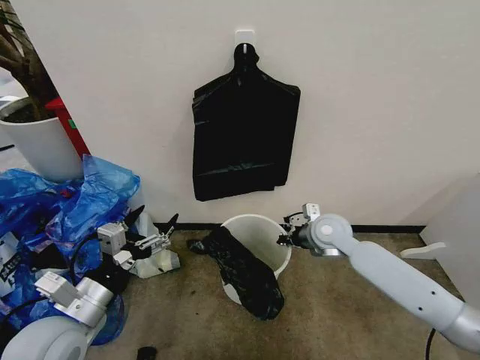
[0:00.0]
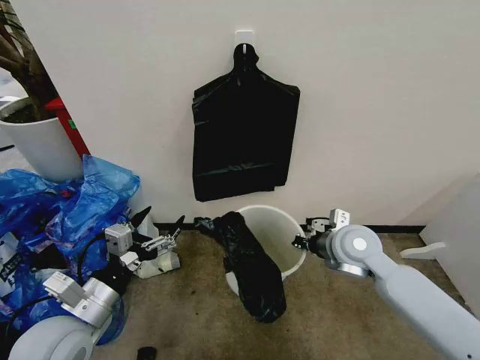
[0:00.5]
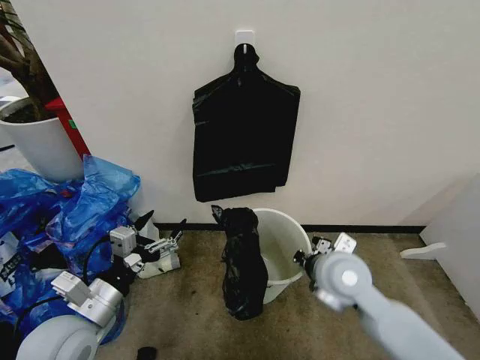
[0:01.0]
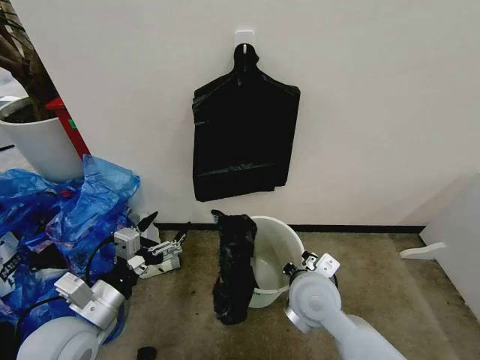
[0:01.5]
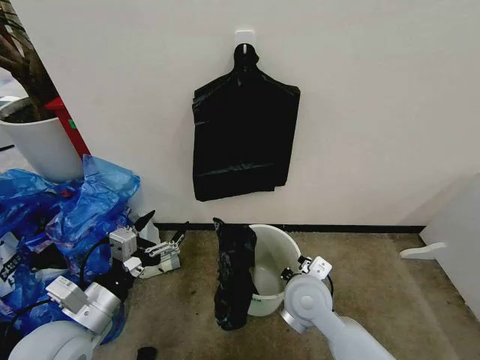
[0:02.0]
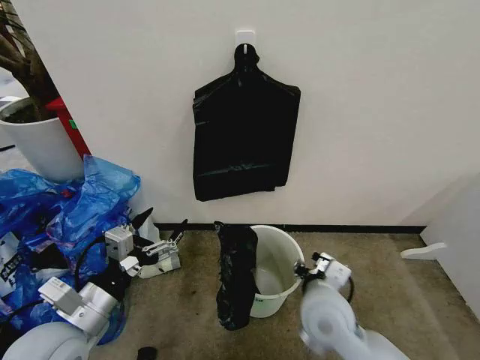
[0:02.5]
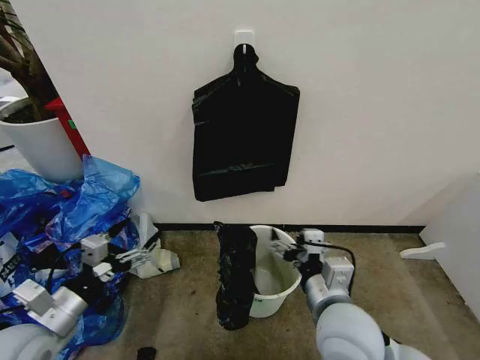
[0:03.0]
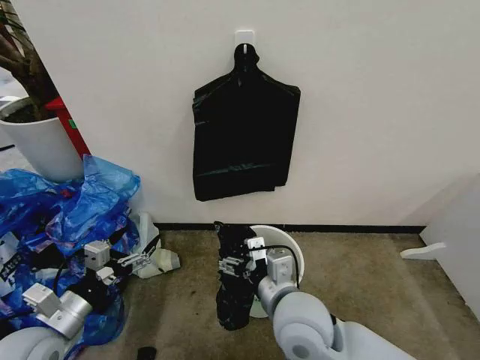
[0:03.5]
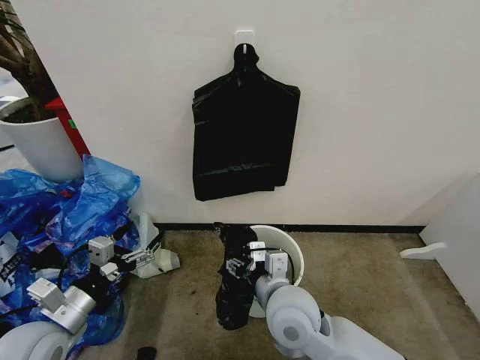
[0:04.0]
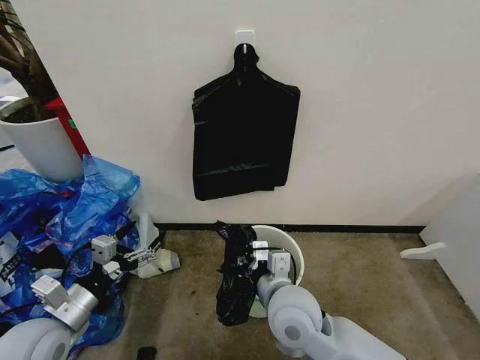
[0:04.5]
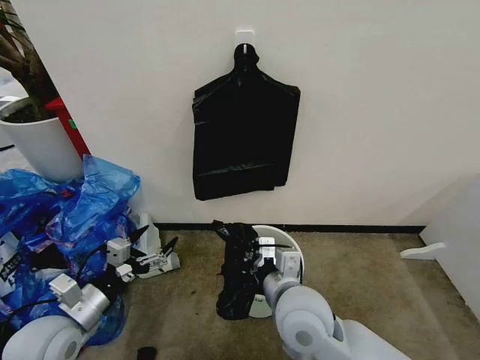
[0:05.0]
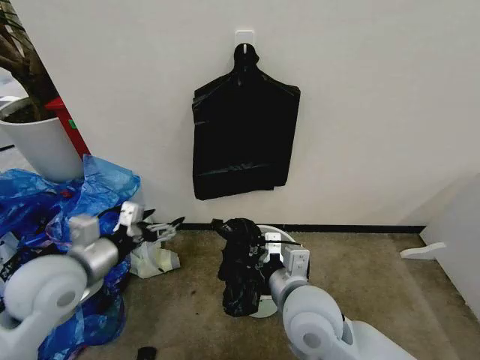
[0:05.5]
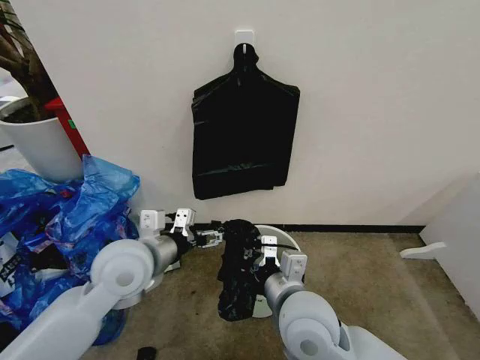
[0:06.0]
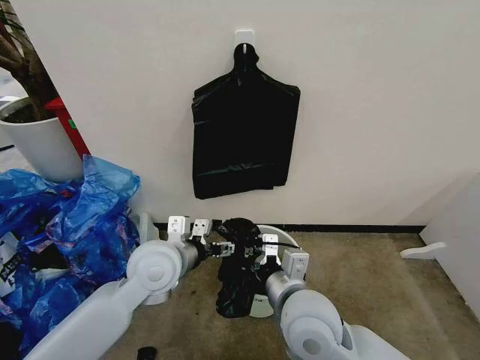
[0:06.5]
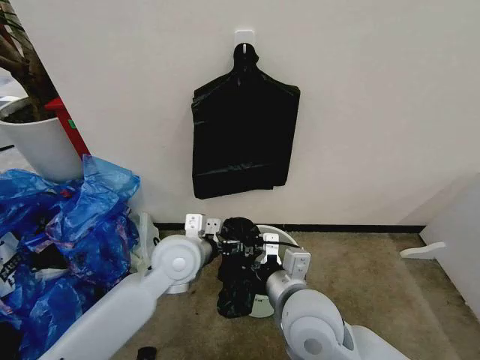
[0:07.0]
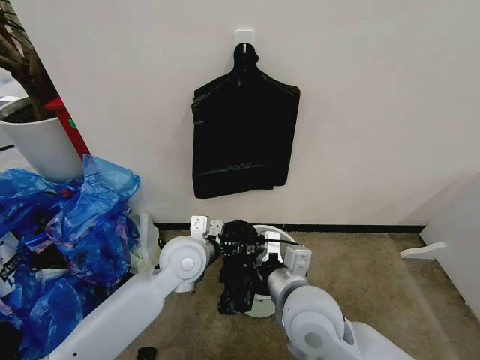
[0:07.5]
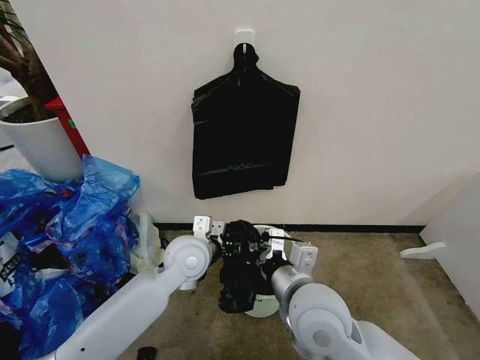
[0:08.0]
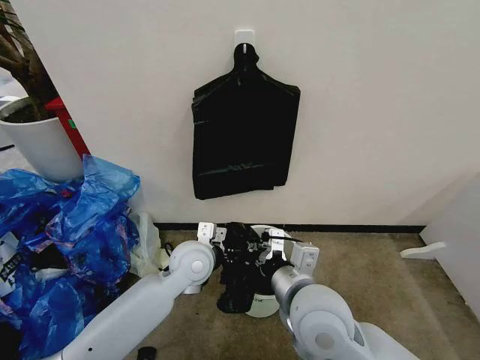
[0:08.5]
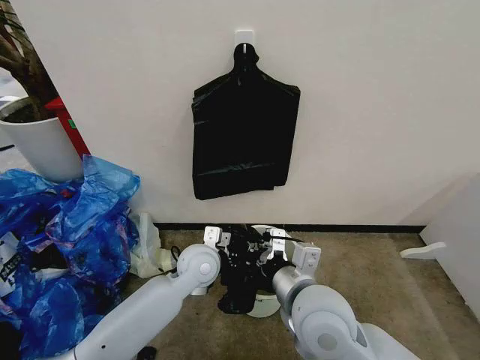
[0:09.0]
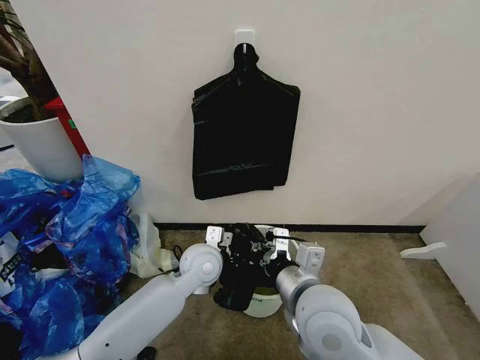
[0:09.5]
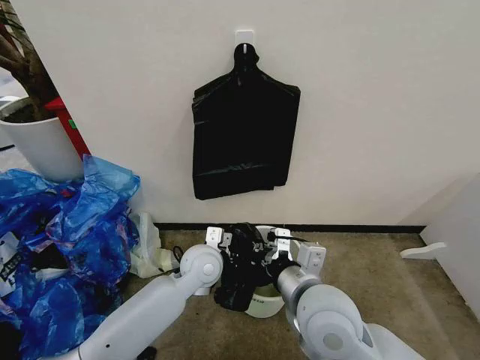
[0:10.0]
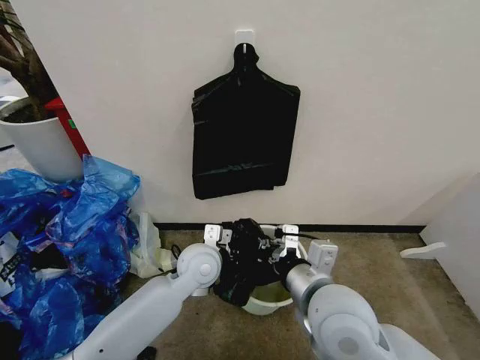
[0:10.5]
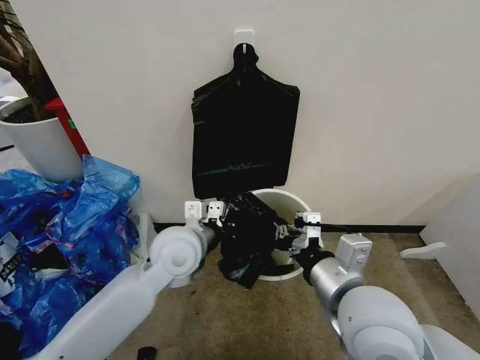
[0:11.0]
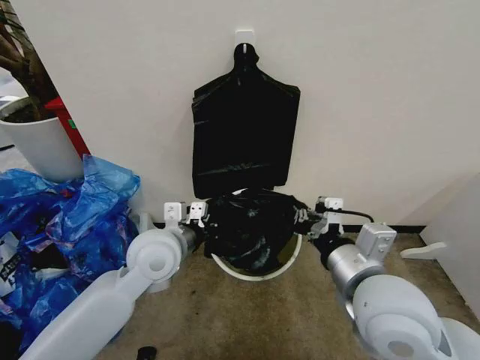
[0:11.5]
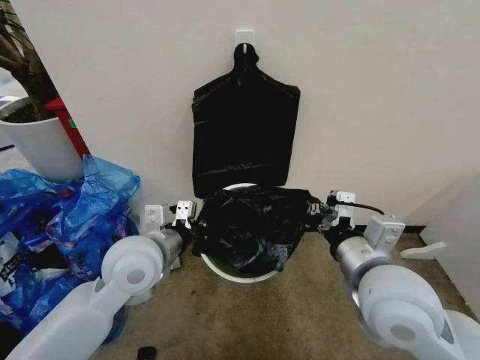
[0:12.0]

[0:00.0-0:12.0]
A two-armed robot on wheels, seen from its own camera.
Task of the whole recording: Place the garbage bag over the trash bin.
0:00.0 to 0:02.0: The right gripper travels backward and to the left by approximately 20 cm.
0:02.0 to 0:04.0: The right gripper opens its fingers; the left gripper travels to the left by roughly 5 cm.
0:04.0 to 0:06.0: The left gripper is displaced to the right, forward and upward by roughly 20 cm. The right gripper closes up.
0:06.0 to 0:08.0: The left gripper moves to the right, downward and forward, roughly 15 cm.
0:08.0 to 0:10.0: The left gripper moves roughly 5 cm, and closes its fingers.
0:10.0 to 0:12.0: The right gripper moves to the right and upward, approximately 10 cm. Meanwhile the left gripper shifts some 15 cm upward, to the left and backward.

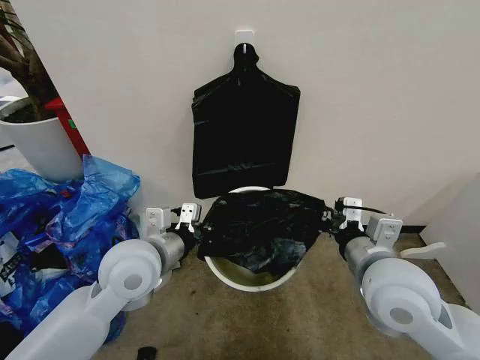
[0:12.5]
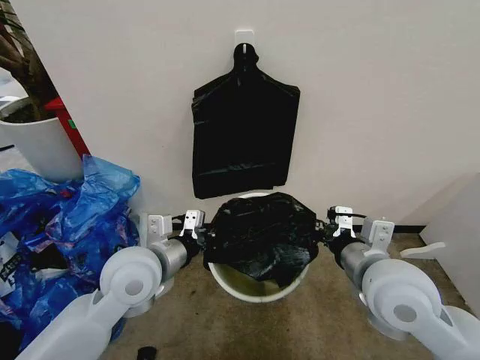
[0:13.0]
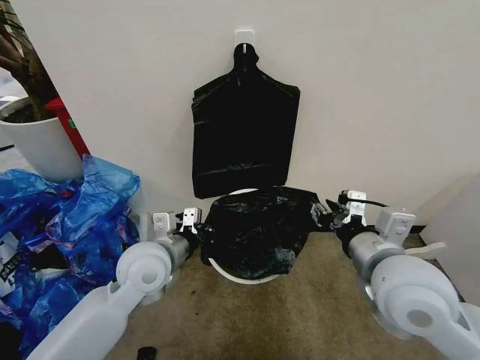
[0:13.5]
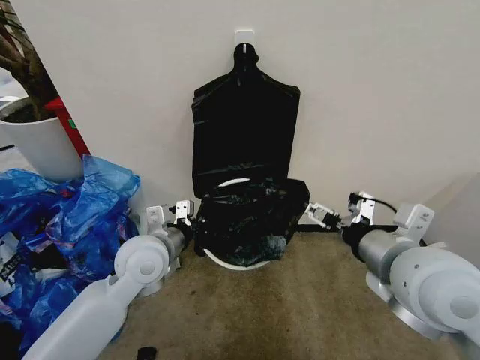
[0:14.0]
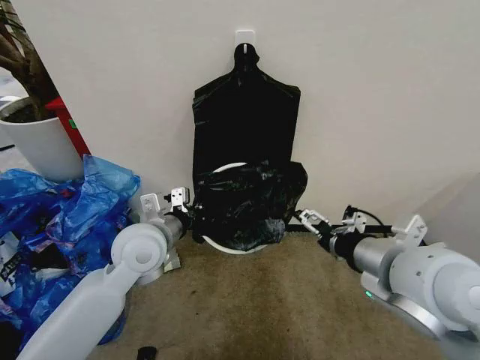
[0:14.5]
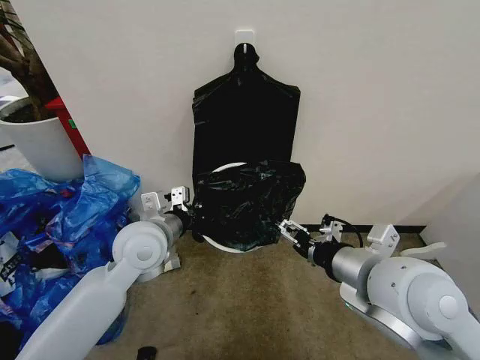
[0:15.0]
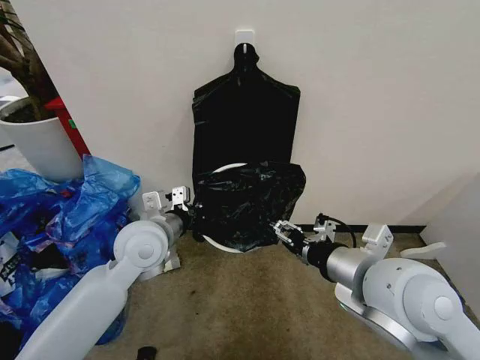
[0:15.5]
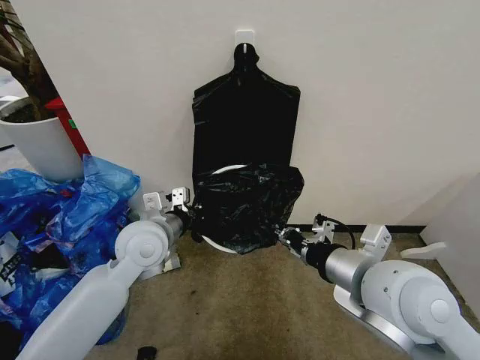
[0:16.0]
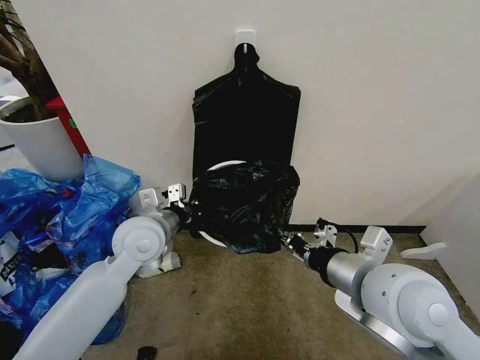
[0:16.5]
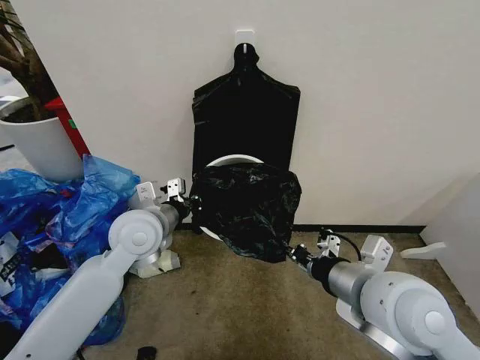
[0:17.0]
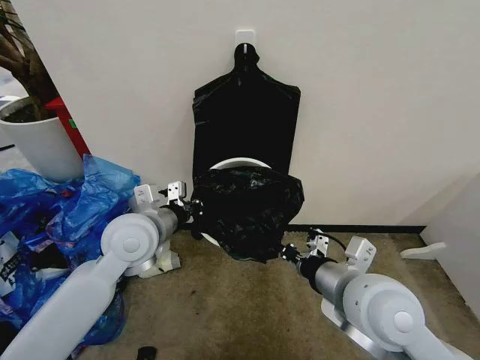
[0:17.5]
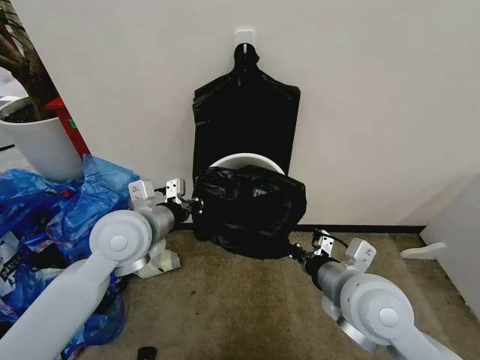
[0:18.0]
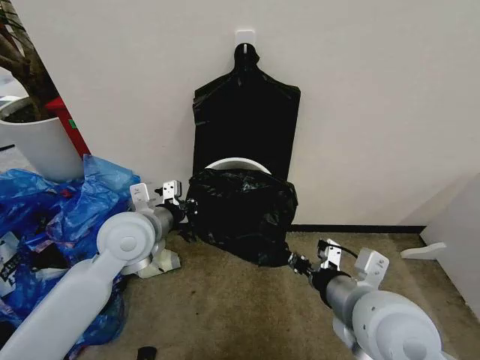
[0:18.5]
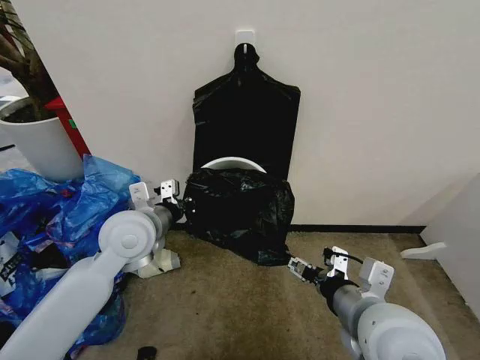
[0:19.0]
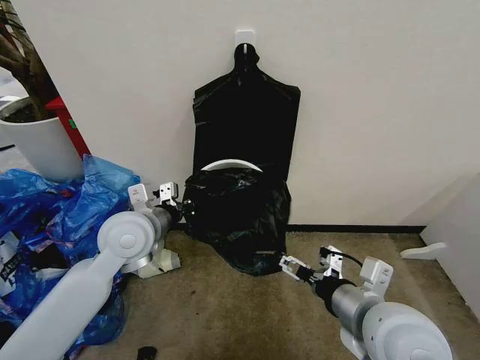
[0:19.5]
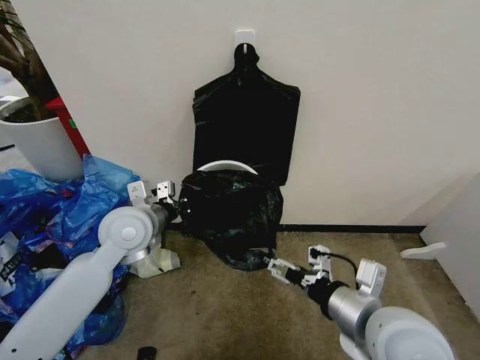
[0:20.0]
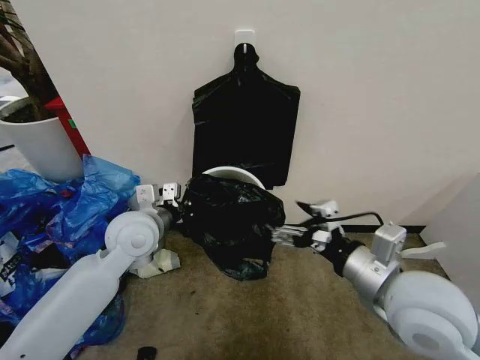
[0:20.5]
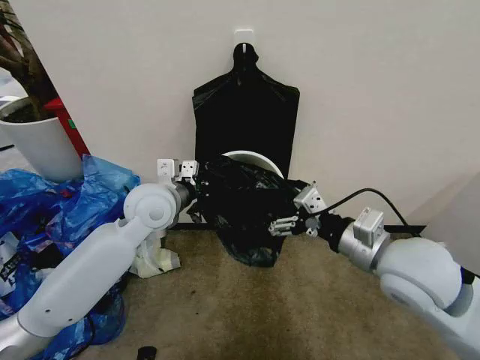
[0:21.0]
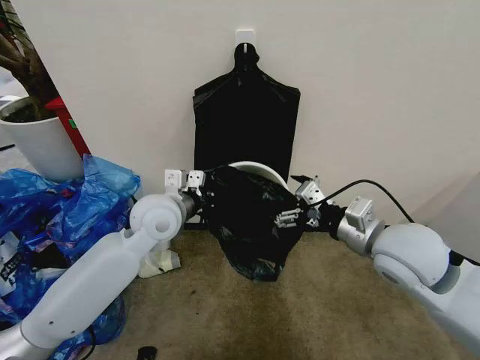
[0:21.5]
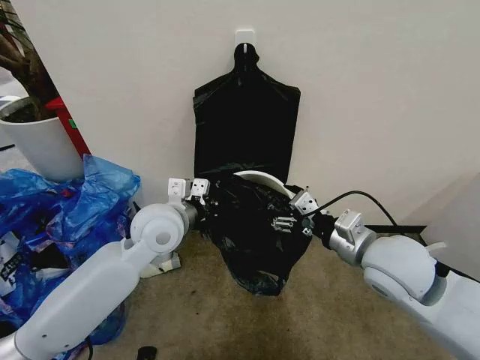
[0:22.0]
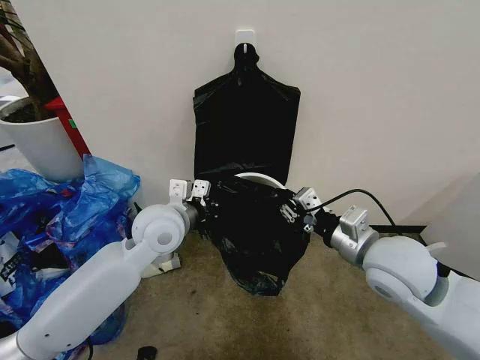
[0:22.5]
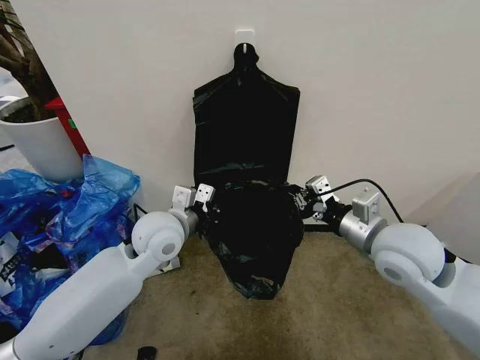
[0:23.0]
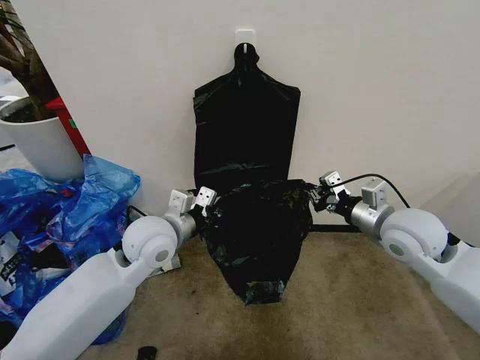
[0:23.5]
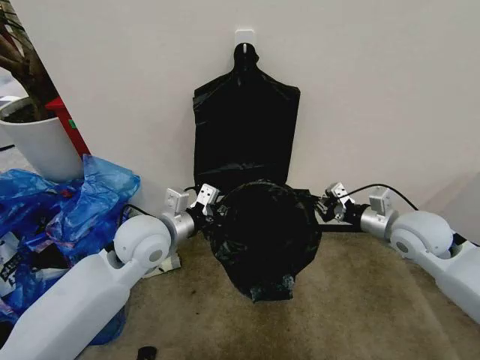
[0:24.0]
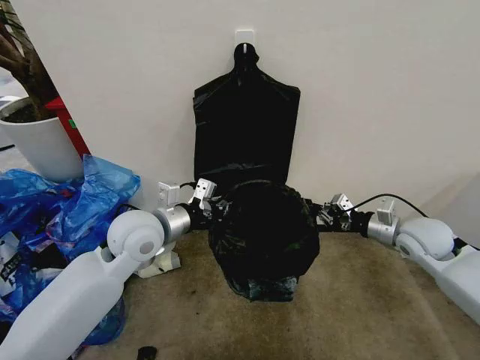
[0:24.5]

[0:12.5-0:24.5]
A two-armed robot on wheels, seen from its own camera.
Task of the whole recording: Place the garbage bag over the trash bin.
0:12.5 to 0:14.5: The right gripper heads upward, covering approximately 5 cm, and opens up.
0:14.5 to 0:16.5: The right gripper closes up.
0:18.5 to 0:20.5: The right gripper shifts by approximately 5 cm, and opens.
0:20.5 to 0:22.5: The right gripper goes some 5 cm forward, and closes up; the left gripper moves to the right, about 5 cm.
0:22.5 to 0:24.5: The right gripper shifts approximately 20 cm to the right, forward and downward.

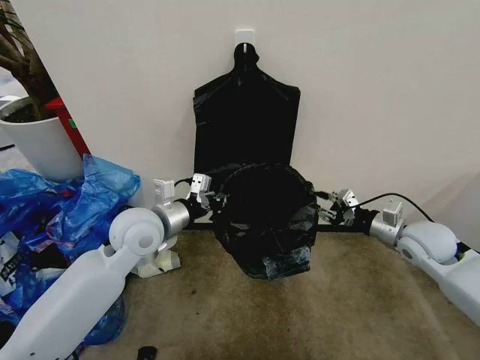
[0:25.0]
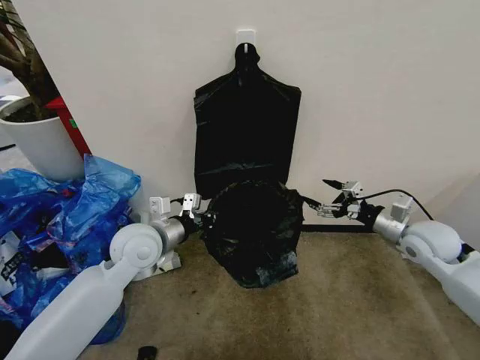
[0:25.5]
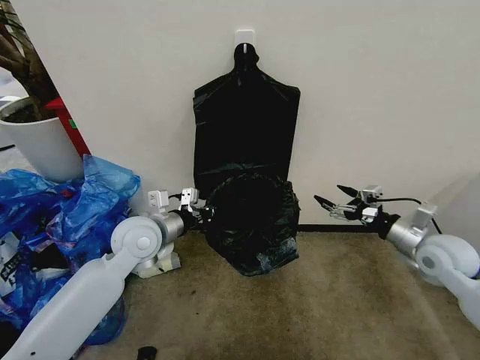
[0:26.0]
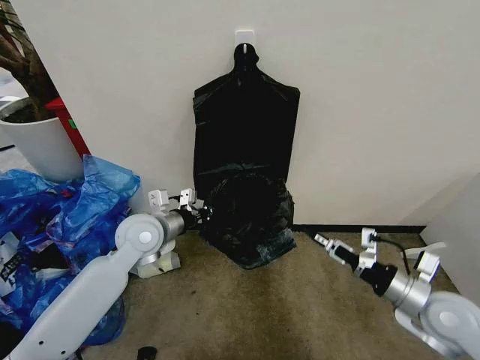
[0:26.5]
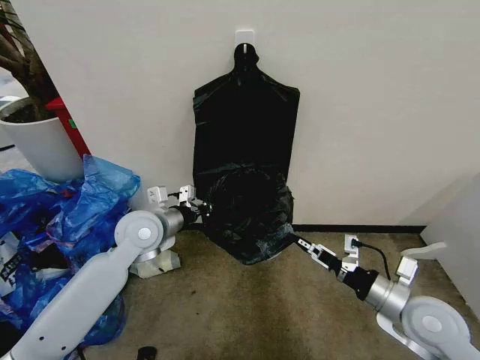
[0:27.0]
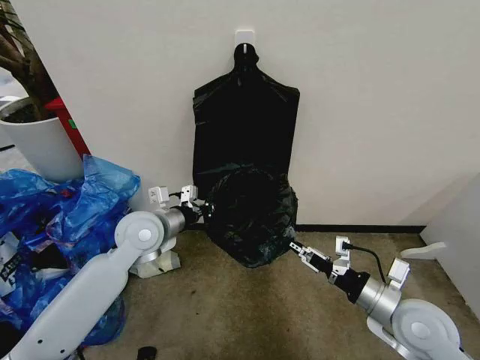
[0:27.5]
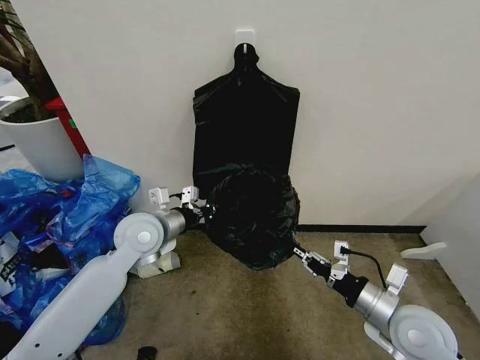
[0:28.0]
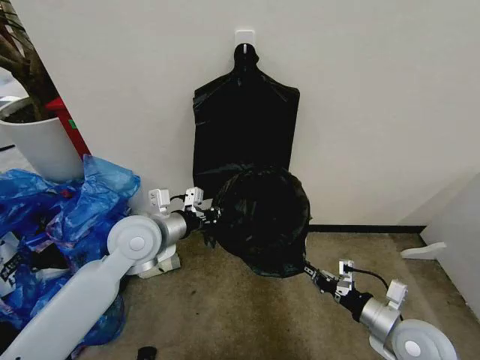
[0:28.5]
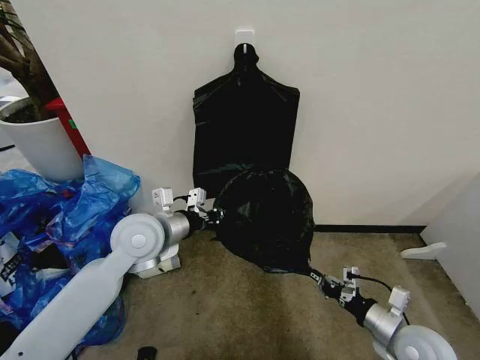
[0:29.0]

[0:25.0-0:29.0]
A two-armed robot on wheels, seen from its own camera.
Task of the whole recording: Place the garbage bag over the trash bin.
0:25.0 to 0:27.0: The left gripper moves some 5 cm. The right gripper shifts some 15 cm backward and to the left, and opens its fingers.
0:27.0 to 0:29.0: The right gripper is displaced downward by roughly 10 cm, and closes; the left gripper moves roughly 5 cm.
